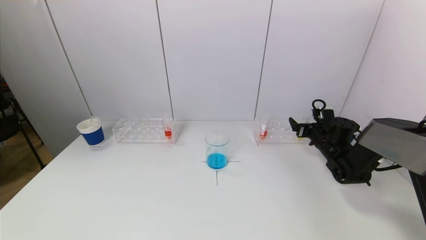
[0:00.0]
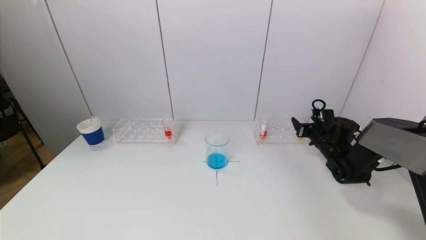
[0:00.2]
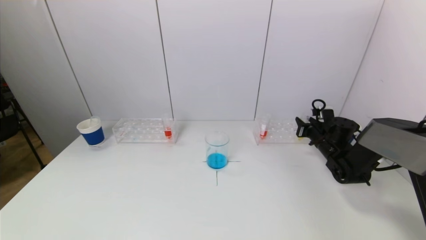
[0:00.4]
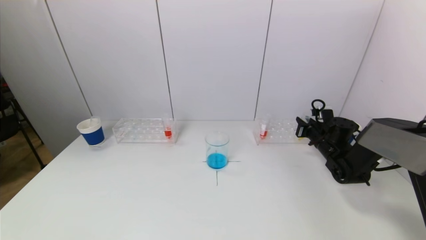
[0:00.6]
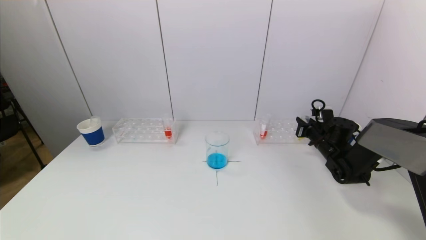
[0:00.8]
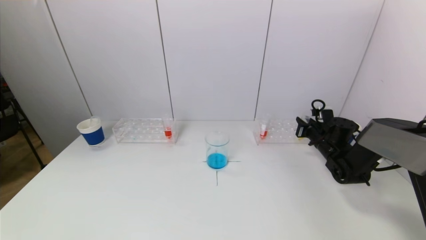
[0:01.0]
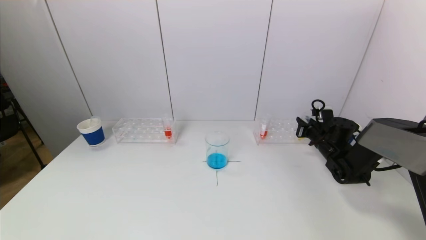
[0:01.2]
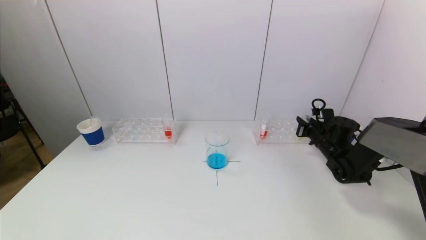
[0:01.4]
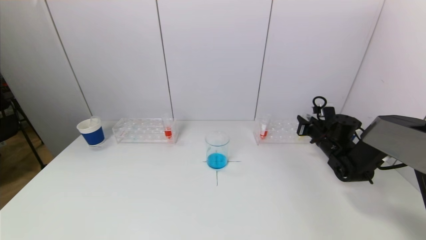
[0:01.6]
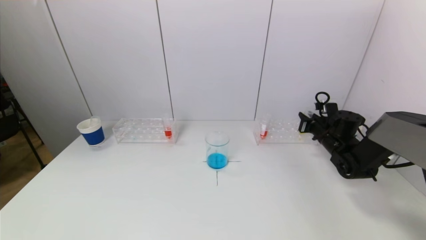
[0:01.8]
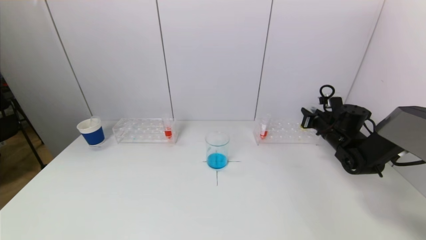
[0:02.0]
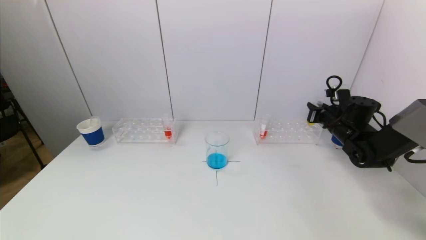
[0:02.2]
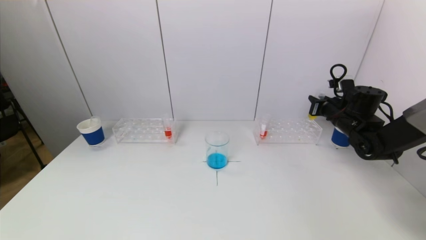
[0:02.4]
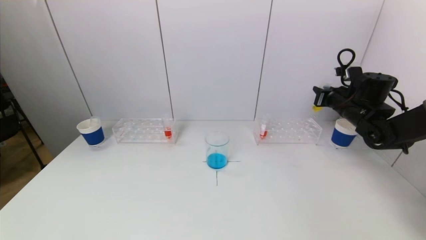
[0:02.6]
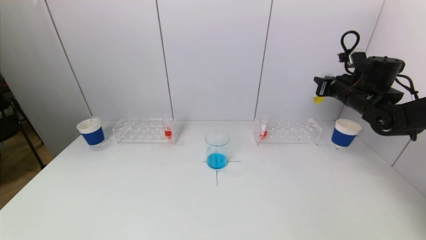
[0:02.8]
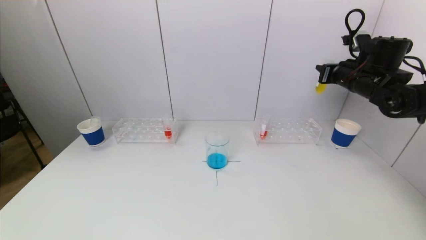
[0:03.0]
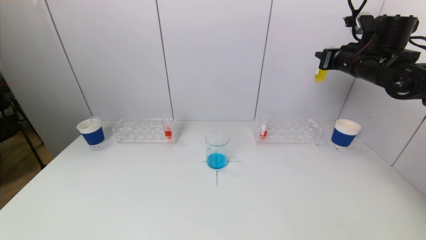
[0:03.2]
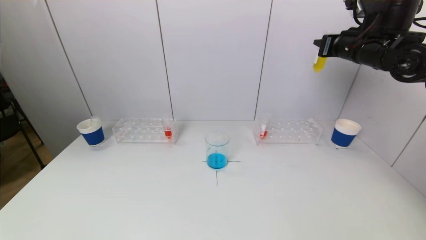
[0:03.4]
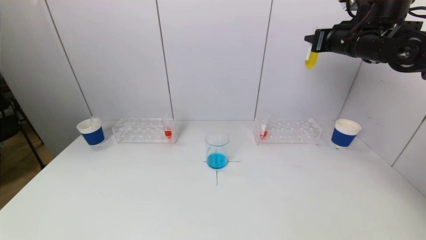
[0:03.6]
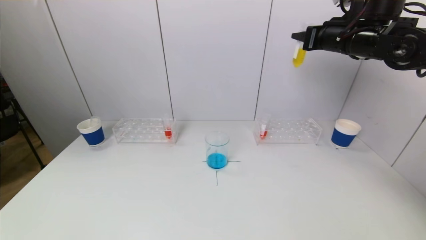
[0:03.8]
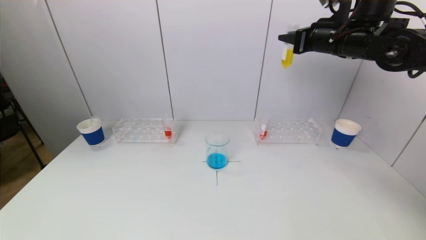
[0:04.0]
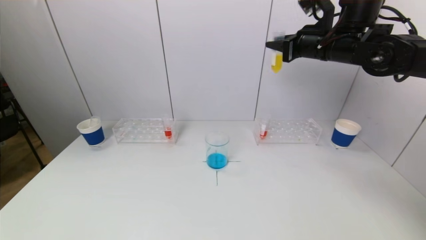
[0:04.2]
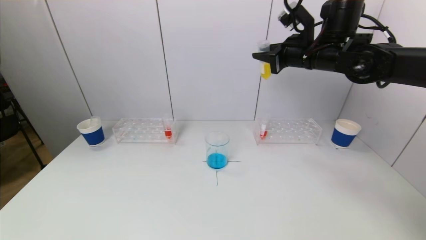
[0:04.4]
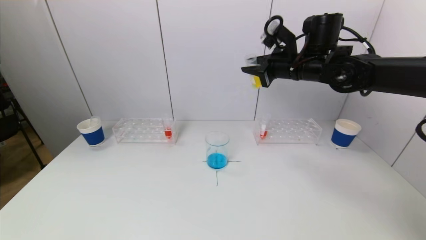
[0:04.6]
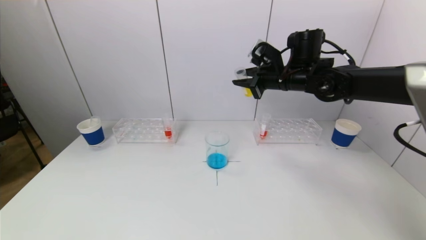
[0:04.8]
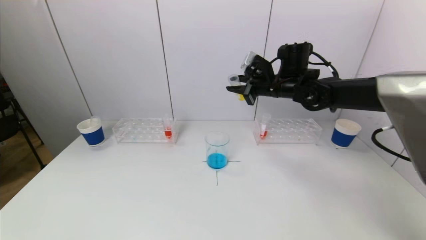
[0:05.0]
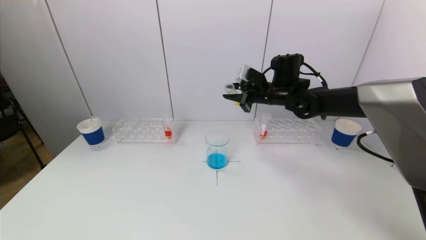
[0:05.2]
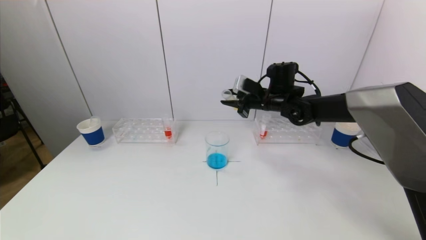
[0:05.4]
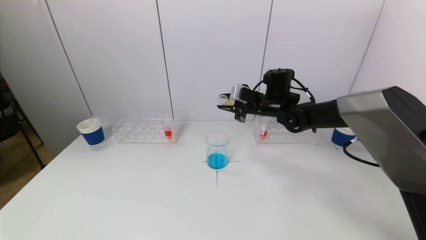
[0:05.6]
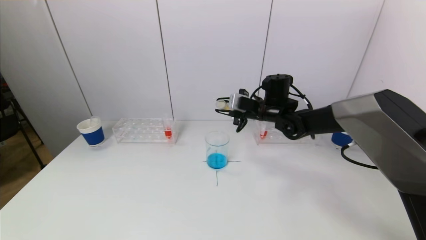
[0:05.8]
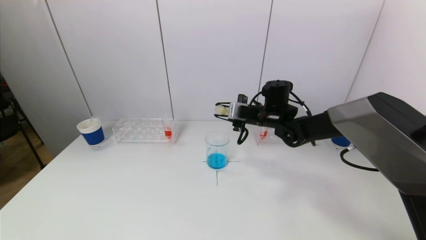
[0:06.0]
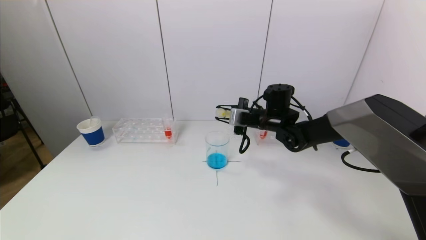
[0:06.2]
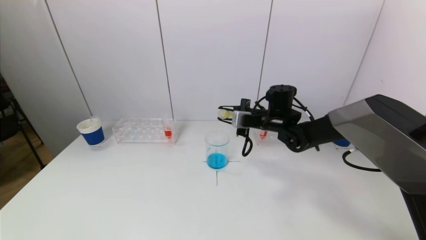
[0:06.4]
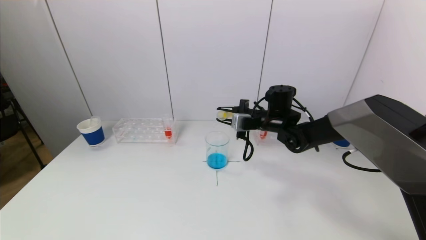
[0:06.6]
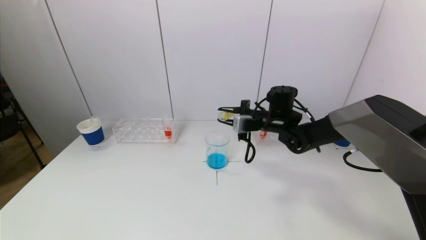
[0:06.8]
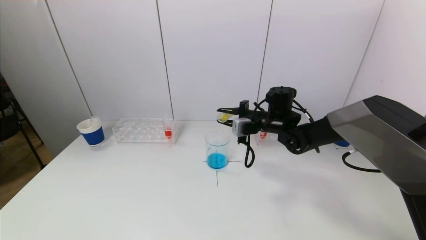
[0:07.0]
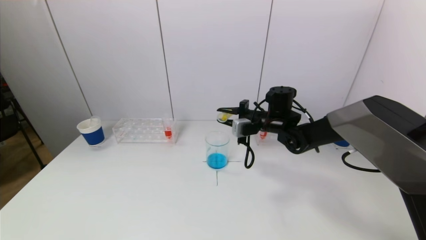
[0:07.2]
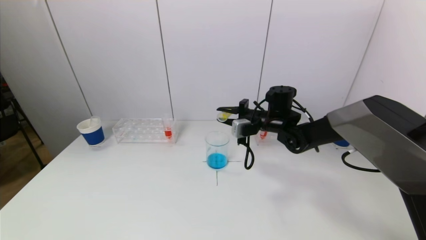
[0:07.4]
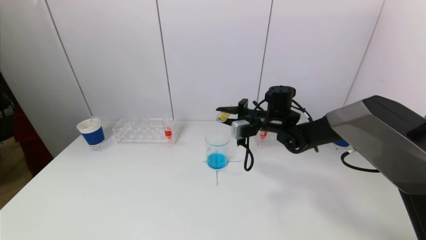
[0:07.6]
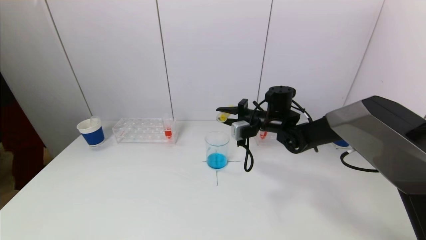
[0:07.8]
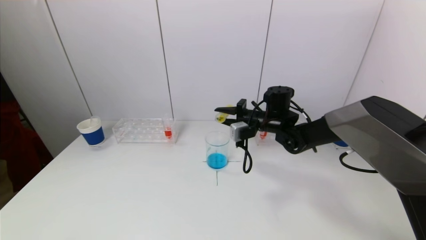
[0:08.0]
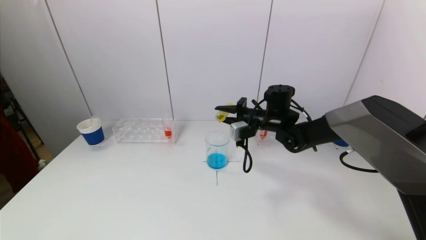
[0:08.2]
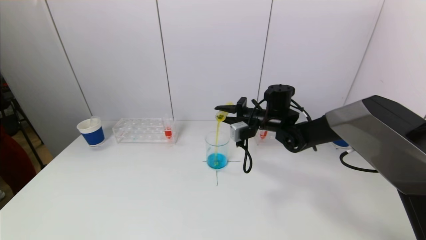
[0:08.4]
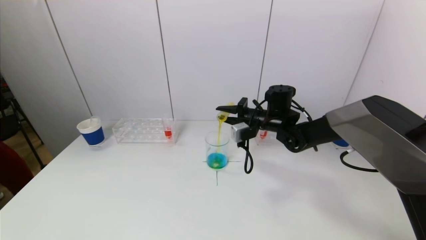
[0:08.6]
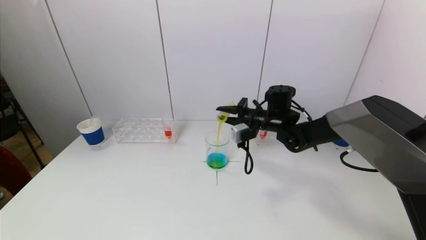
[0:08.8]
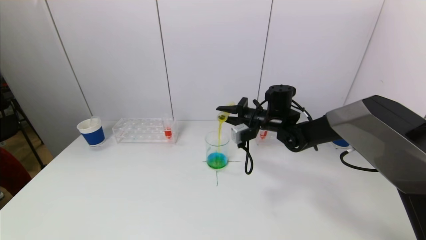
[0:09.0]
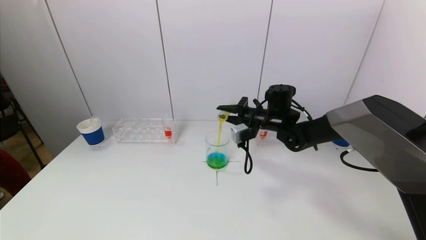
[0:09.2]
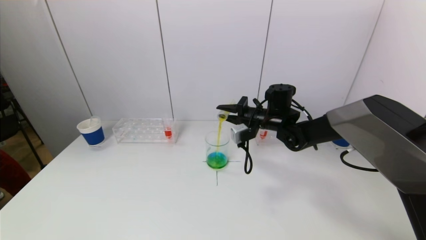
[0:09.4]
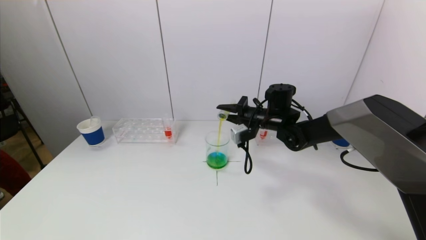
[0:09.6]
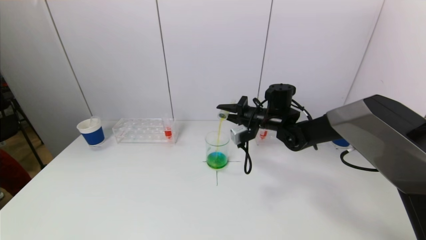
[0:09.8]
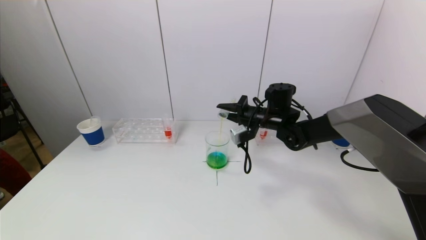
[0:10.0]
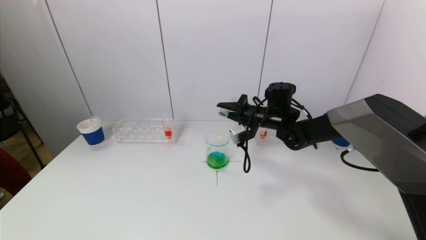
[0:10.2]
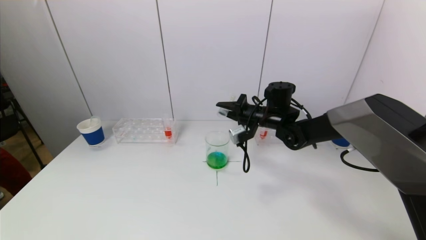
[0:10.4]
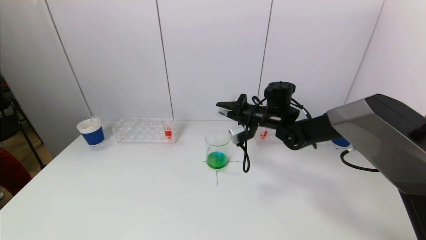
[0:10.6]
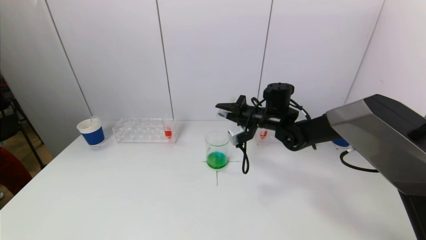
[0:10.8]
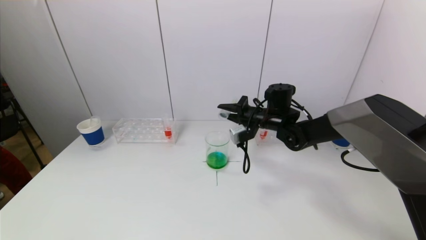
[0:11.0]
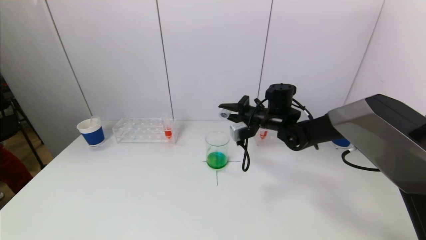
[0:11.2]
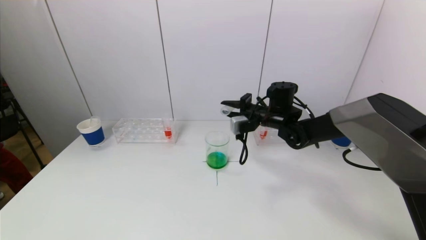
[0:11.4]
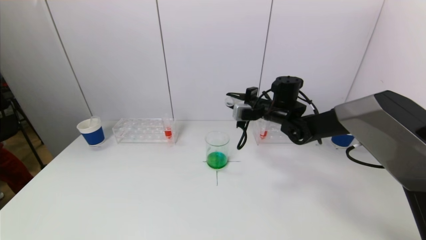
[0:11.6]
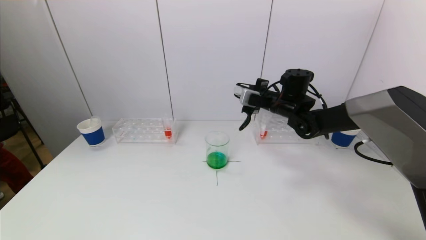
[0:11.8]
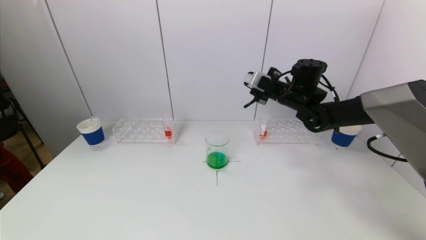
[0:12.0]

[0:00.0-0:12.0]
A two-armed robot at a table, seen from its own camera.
Task of the whole recording: pick up a test tube with pigment on left test tube rack and a test tube with pigment on right test tube rack by grippers and pour them into the beaker.
Step, 0:00.8 to 0:10.2: Pour the yellow reagent into the graduated cylinder with the right gripper.
0:00.0 to 0:01.6: The right gripper closes.
0:01.6 to 0:03.0: The right gripper goes some 20 cm upward.
0:03.0 to 0:04.4: The right gripper is displaced to the left and upward by some 15 cm.
0:04.4 to 0:06.0: The right gripper moves downward and to the left, approximately 20 cm.
0:07.6 to 0:09.0: The grippers make only small movements.
0:09.0 to 0:10.4: There are only small adjustments of the grippers.
0:10.4 to 0:12.0: The right gripper heads to the right and upward, covering some 10 cm.

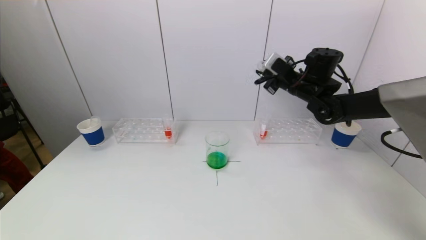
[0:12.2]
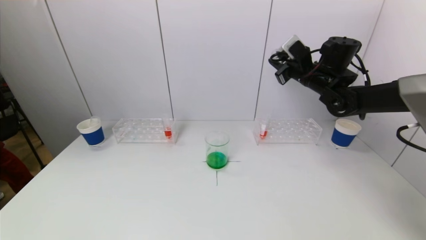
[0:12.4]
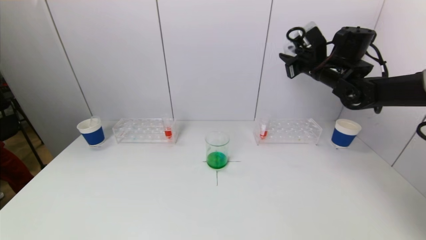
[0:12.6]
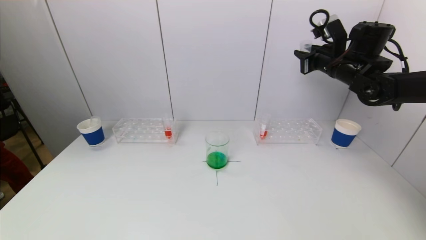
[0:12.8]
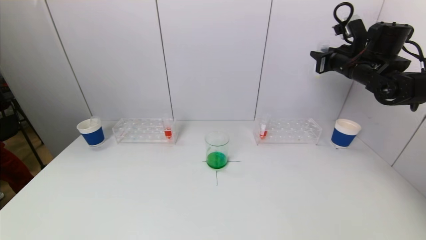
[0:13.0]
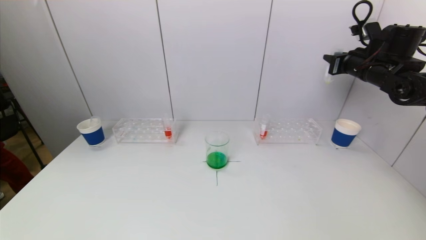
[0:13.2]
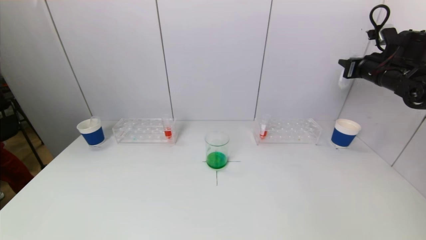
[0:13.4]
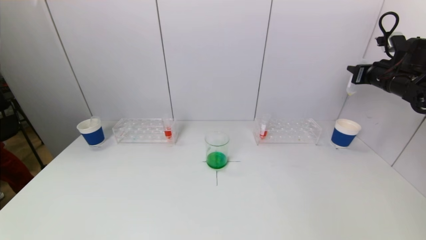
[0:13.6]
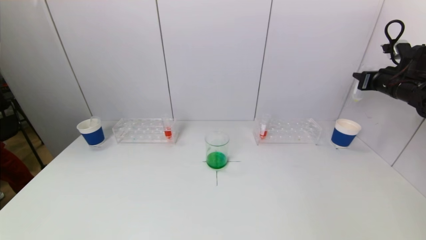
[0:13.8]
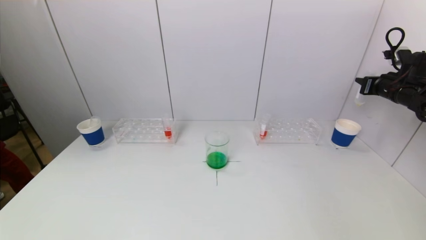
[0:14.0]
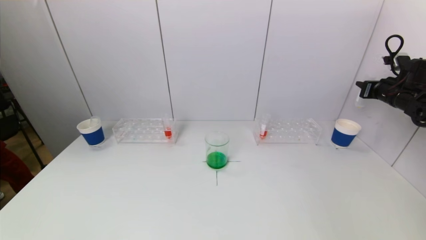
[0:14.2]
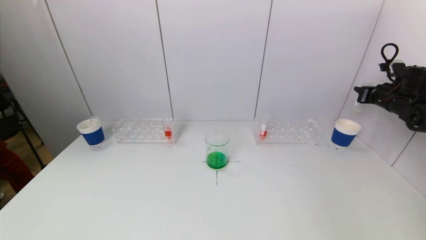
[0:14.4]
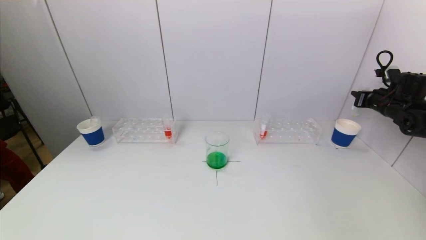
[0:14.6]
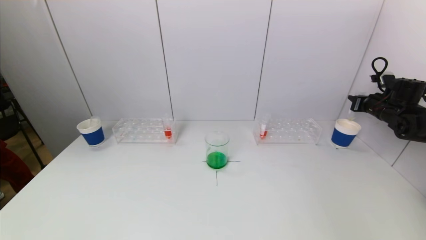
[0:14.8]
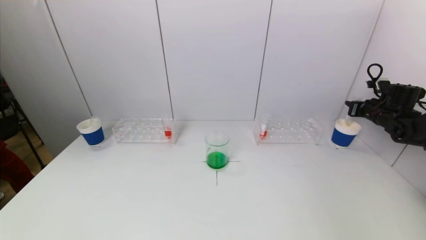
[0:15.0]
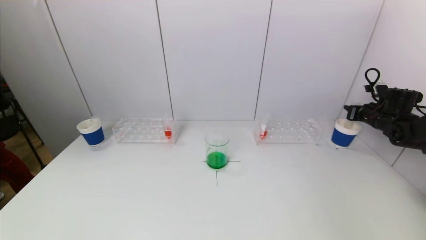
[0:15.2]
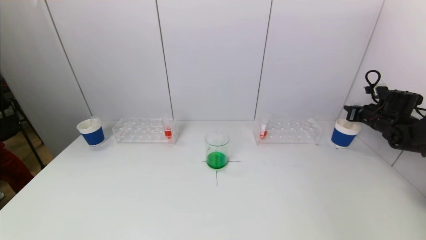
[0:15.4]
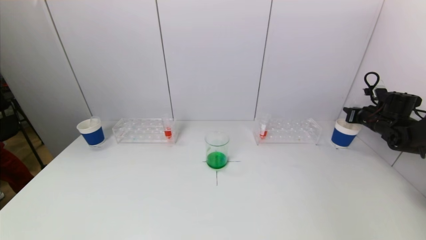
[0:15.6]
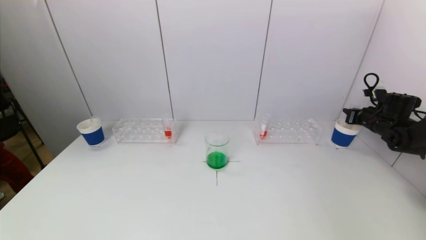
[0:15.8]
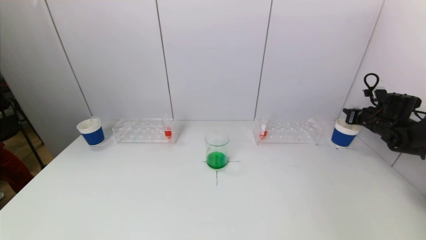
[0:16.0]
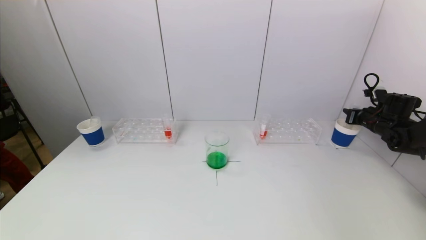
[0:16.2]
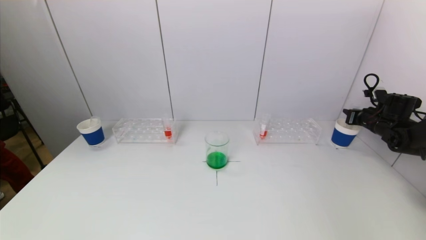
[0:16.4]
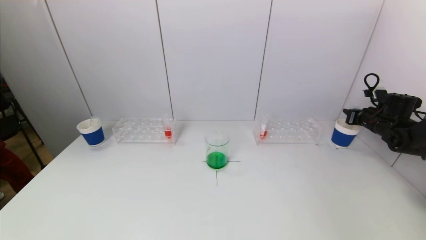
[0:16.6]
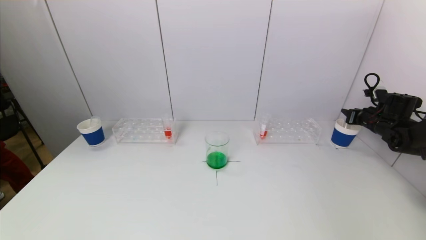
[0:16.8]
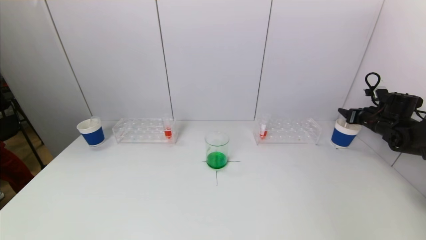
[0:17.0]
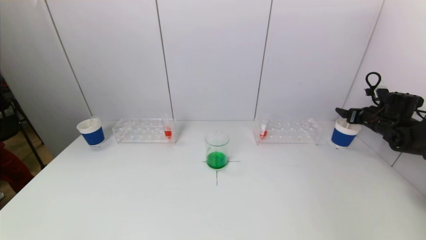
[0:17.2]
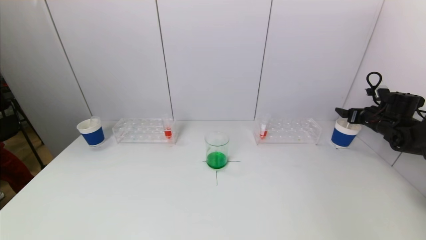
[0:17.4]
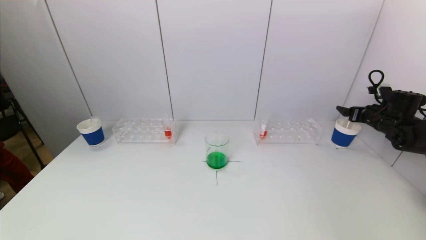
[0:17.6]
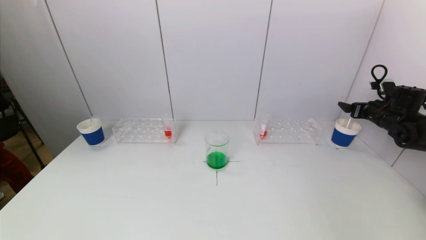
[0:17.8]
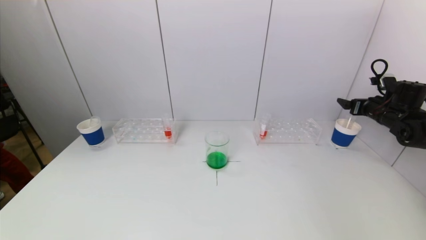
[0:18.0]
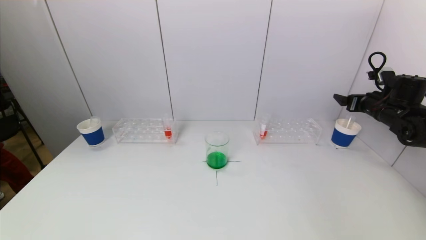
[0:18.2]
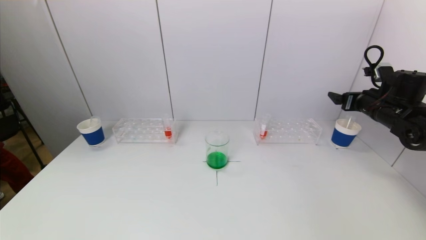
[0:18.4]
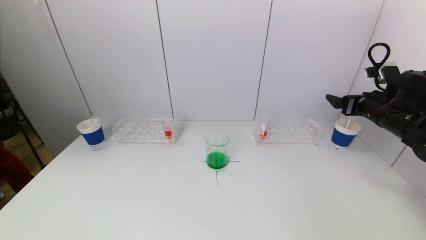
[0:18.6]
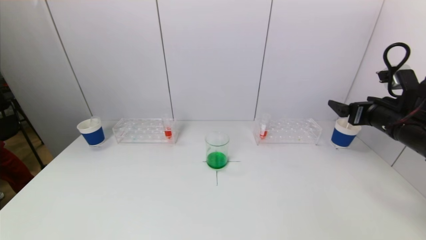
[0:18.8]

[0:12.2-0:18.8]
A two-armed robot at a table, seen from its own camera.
Task of the whole recording: pick up a test tube with pigment on left test tube rack and a test tube with pigment on right test tube rack by grippers and pour them into the beaker.
Step, 0:12.2 to 0:17.0: Place the test tube into the paper cup with the right gripper.
0:12.2 to 0:13.8: The right gripper goes roughly 20 cm to the right.
0:13.8 to 0:15.4: The right gripper shifts approximately 10 cm downward.
0:15.4 to 0:17.2: The right gripper opens up.
0:17.2 to 0:18.8: The right gripper heads backward, to the left and upward, covering roughly 25 cm.
